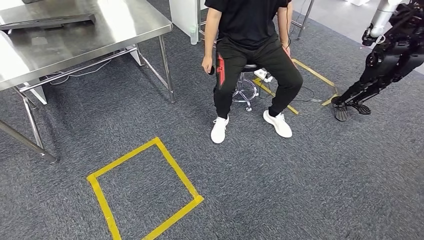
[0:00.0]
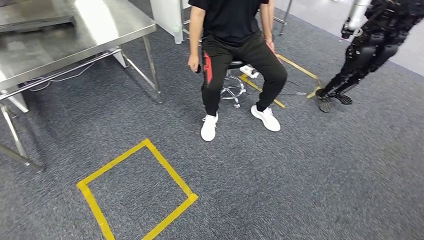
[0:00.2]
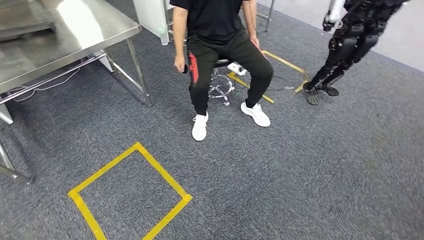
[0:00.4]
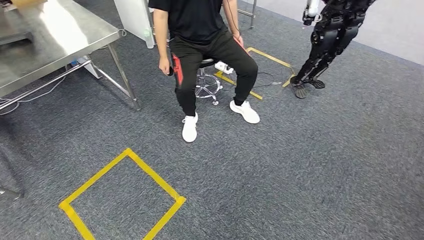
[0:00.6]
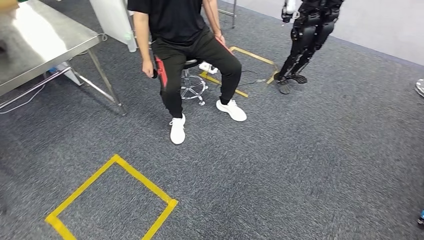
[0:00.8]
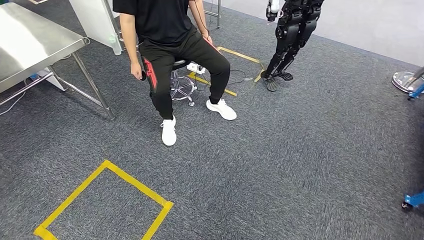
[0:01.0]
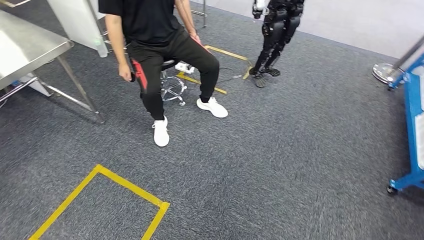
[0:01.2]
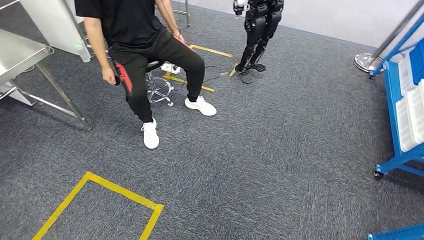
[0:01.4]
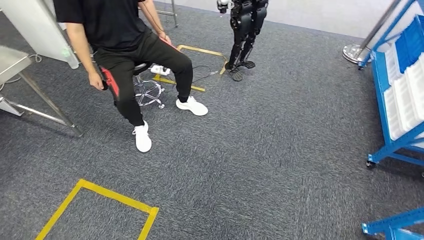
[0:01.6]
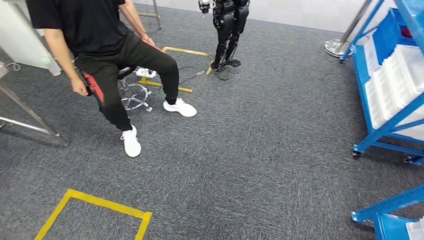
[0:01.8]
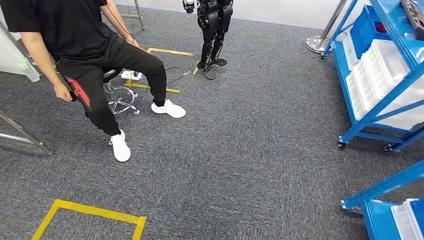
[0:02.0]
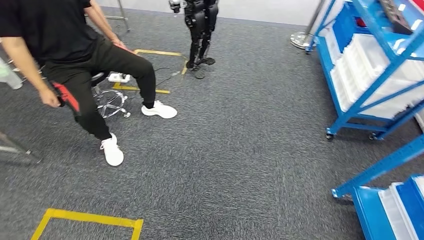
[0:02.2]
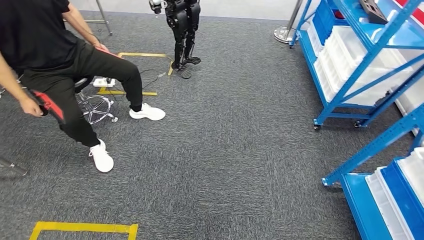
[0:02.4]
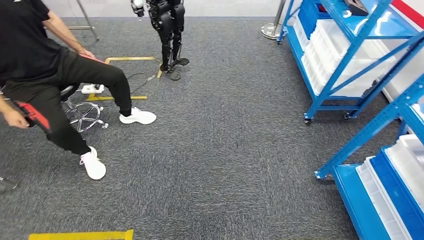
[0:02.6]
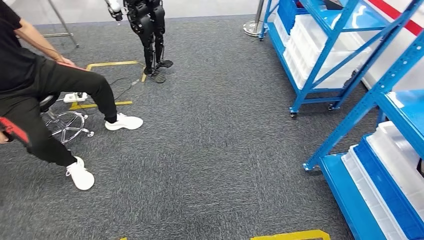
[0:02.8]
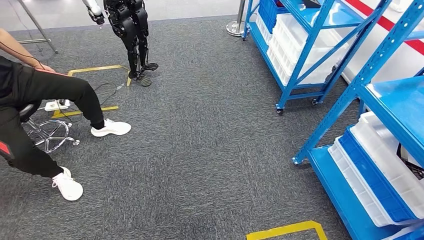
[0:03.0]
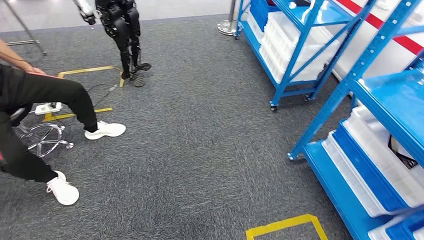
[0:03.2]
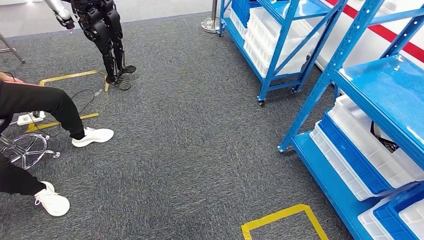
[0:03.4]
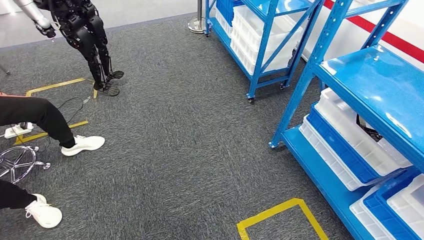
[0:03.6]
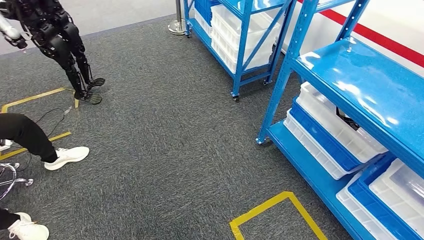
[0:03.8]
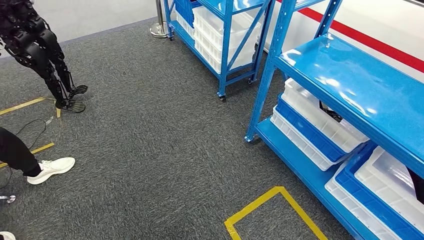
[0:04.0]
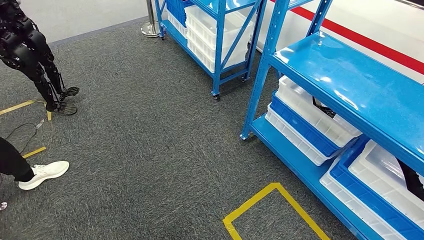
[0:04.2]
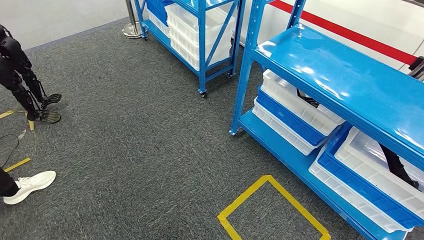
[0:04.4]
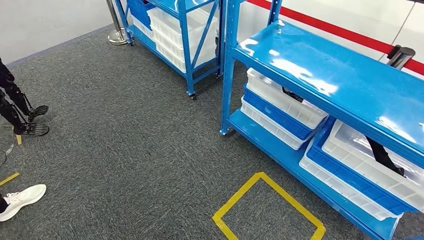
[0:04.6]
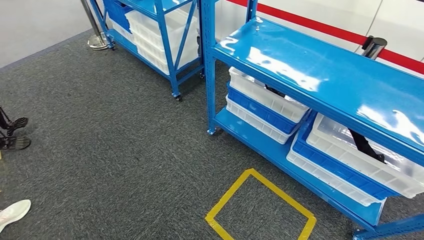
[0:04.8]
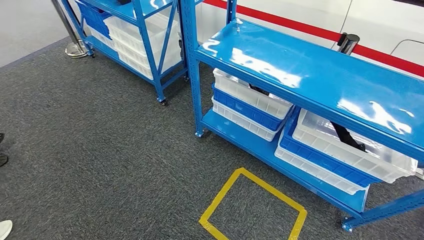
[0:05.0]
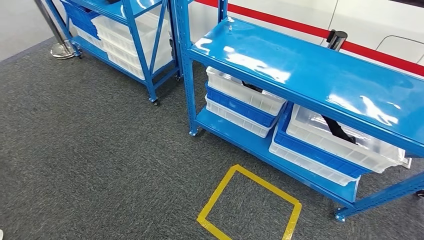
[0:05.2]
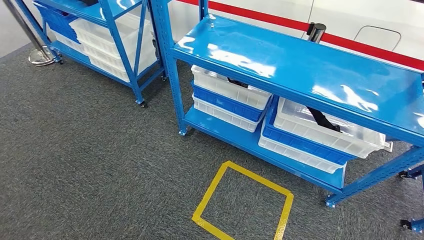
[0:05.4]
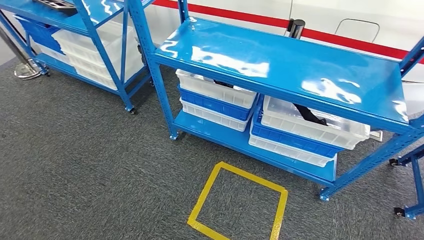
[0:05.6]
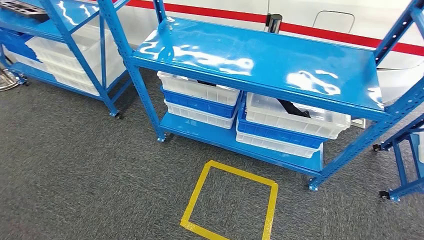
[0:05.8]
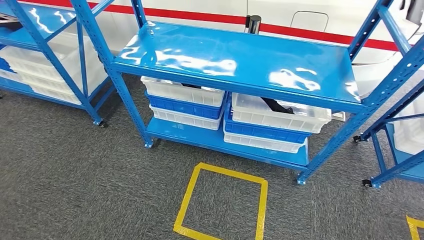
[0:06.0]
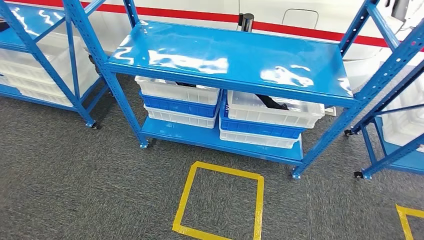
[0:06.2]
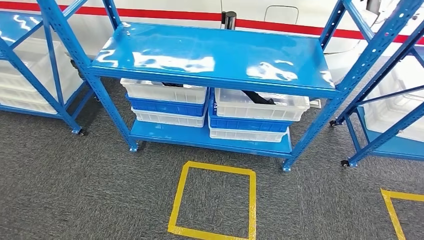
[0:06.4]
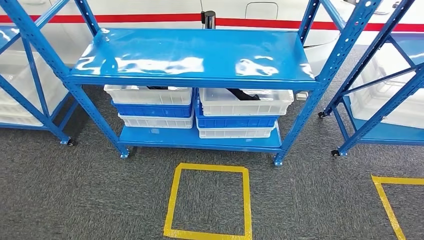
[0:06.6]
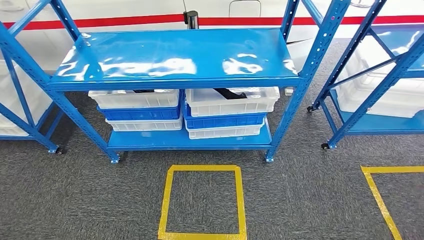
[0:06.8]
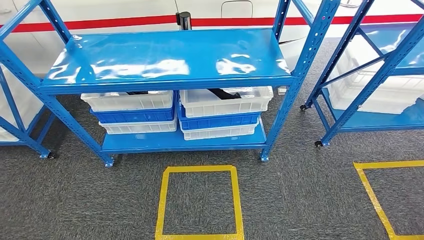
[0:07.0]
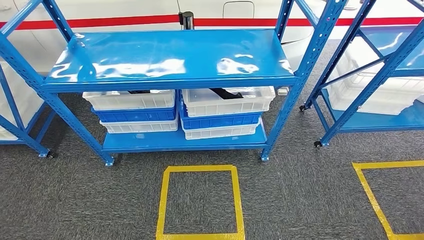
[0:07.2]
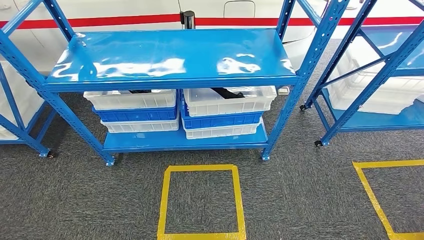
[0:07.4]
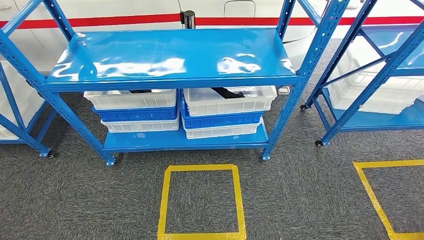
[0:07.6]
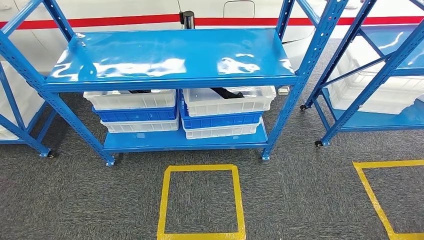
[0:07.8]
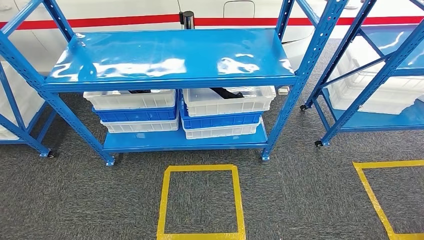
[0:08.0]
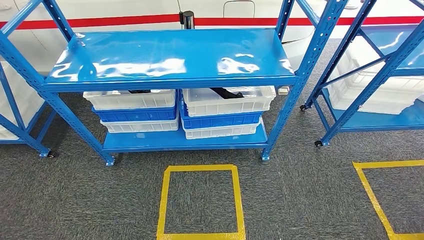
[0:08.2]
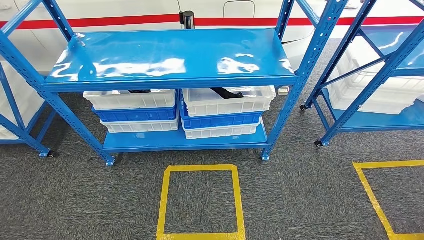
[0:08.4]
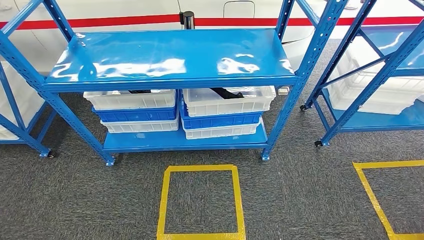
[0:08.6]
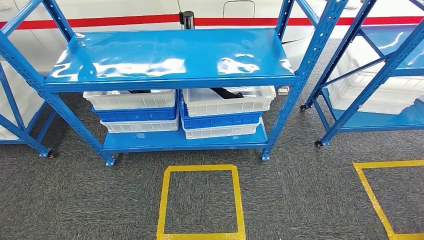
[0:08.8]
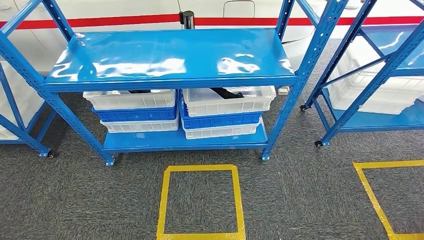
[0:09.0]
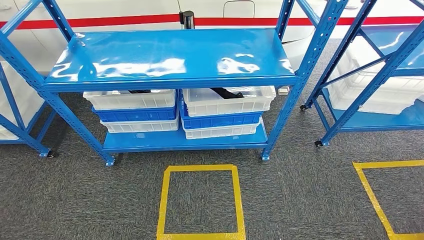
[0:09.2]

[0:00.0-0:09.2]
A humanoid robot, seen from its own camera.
Step, 0:00.0 to 0:09.2: Return to the initial position at the shelf.
0:07.6 to 0:09.2: The right hand is displaced backward by some 5 cm.
